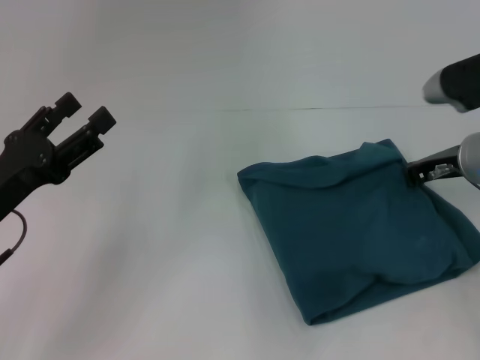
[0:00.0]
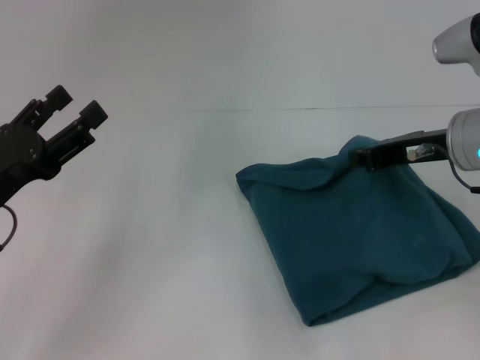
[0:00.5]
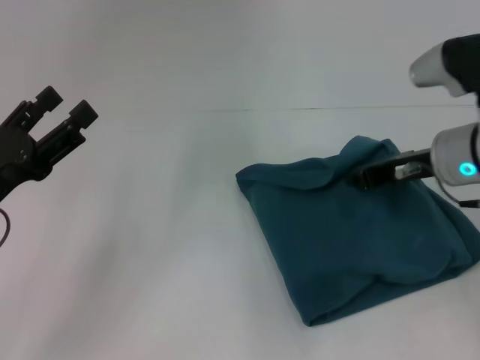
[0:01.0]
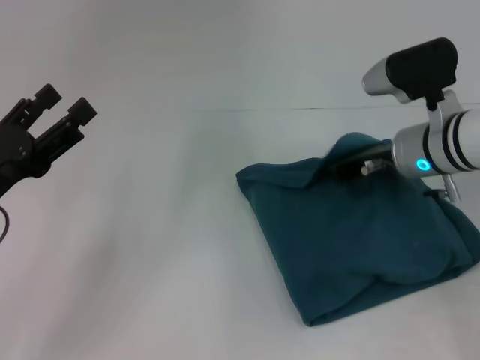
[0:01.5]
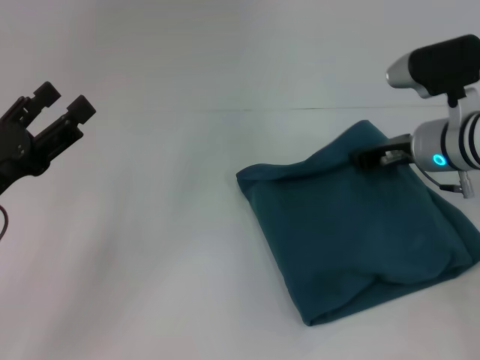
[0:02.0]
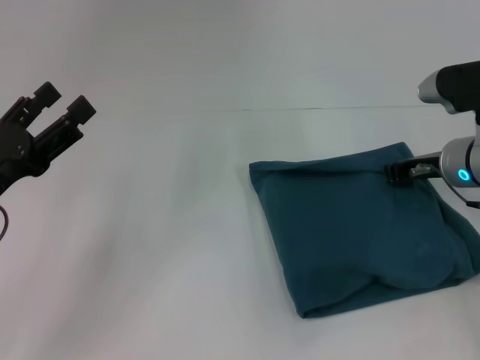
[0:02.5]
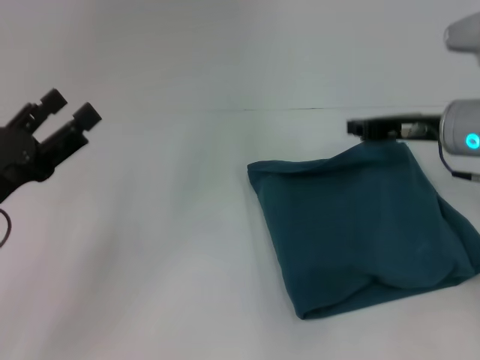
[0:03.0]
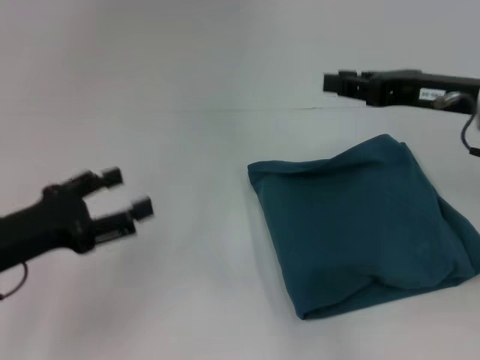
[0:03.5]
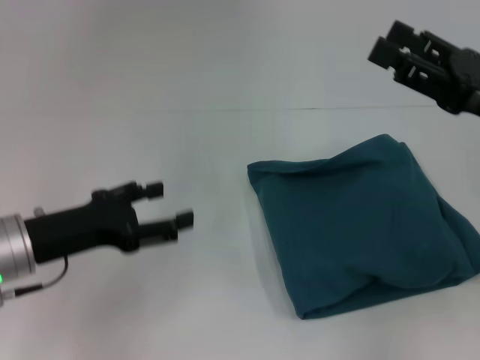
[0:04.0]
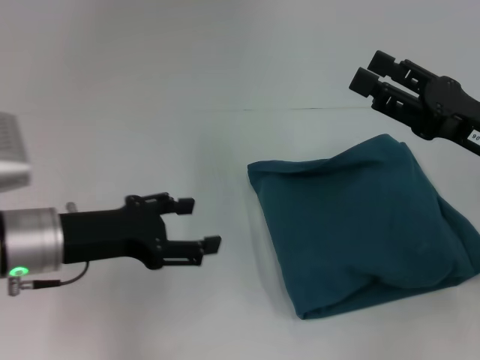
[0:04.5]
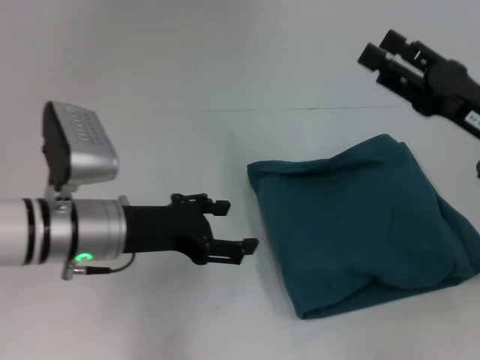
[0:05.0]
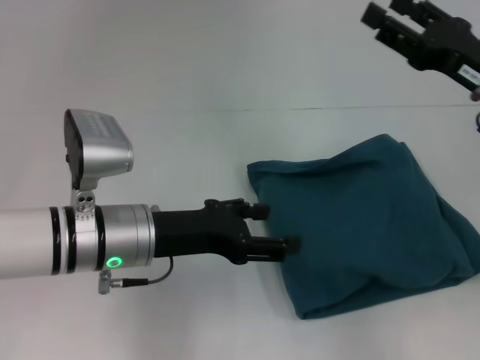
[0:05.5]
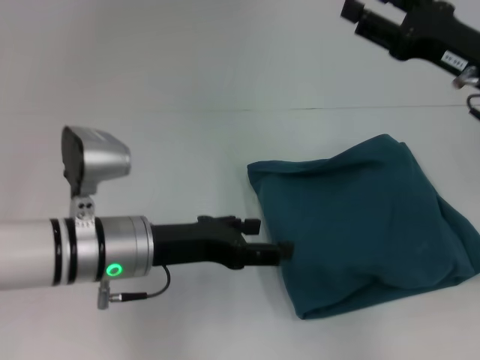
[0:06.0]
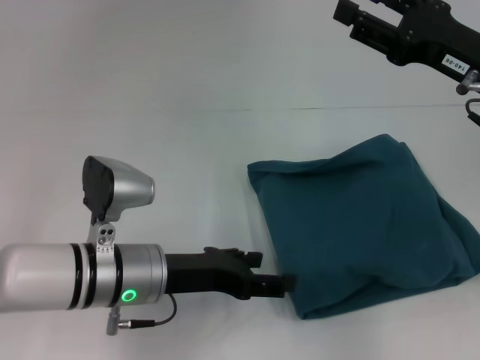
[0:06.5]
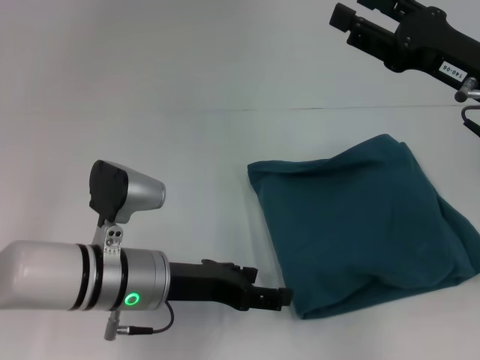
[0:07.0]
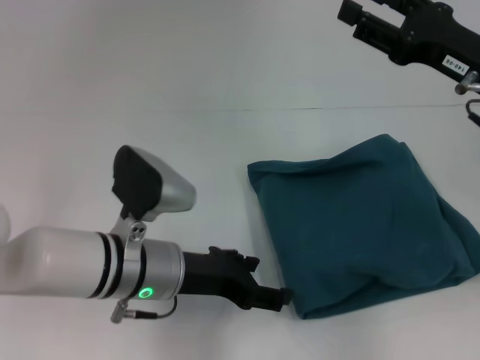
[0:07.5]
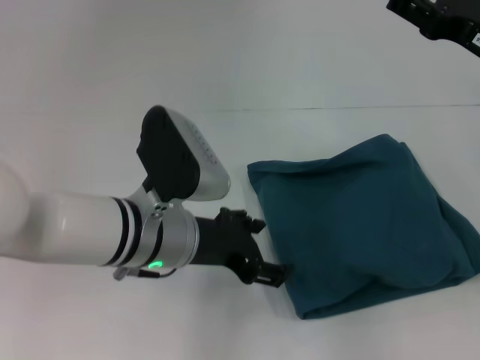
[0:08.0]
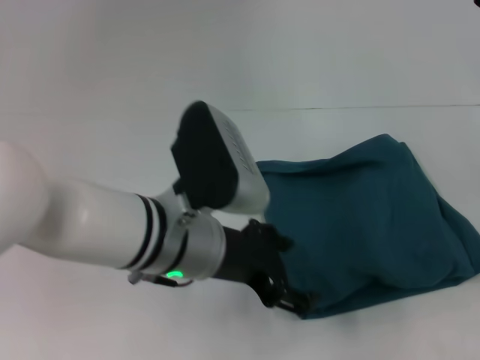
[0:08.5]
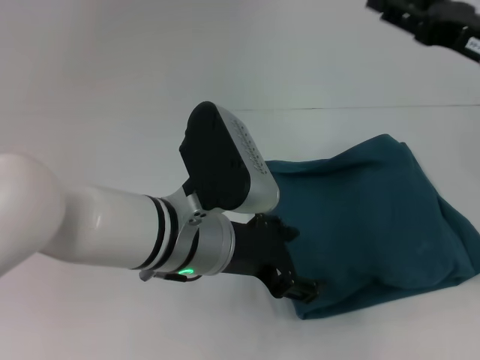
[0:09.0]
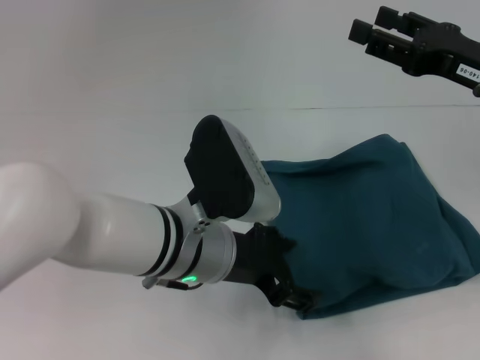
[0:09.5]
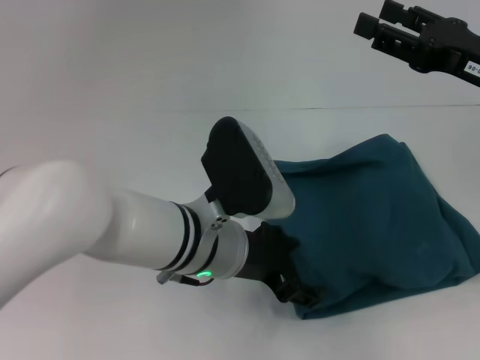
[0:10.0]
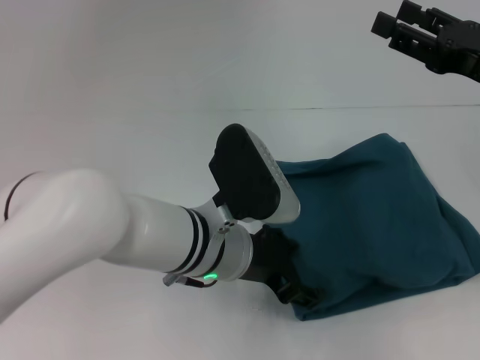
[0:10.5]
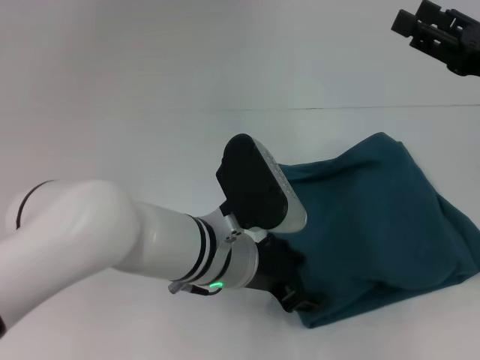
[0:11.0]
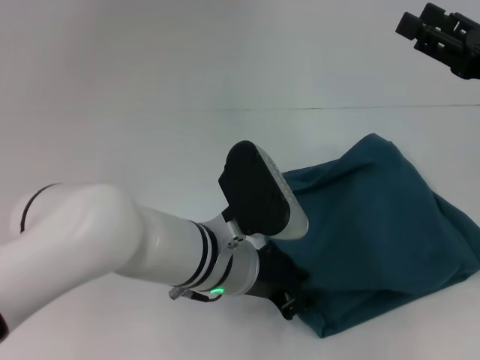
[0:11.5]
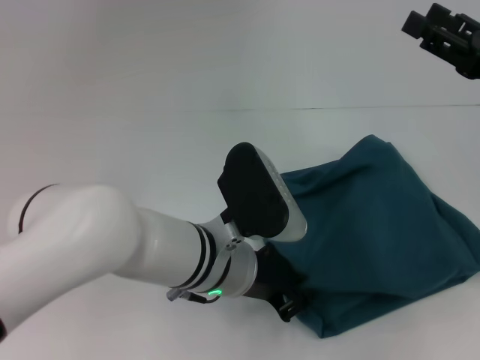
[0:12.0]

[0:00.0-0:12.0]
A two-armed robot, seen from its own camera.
0:02.0 to 0:04.0: The right gripper goes some 15 cm backward, upward and to the right, and opens.
0:04.0 to 0:06.0: The right gripper travels forward by approximately 5 cm. The left gripper goes approximately 10 cm to the right.
0:06.0 to 0:08.0: The left gripper moves about 5 cm.
0:10.0 to 0:12.0: The left gripper closes up.

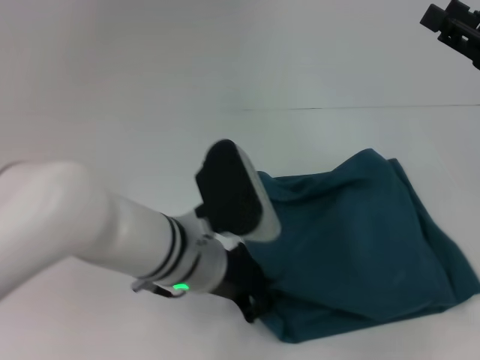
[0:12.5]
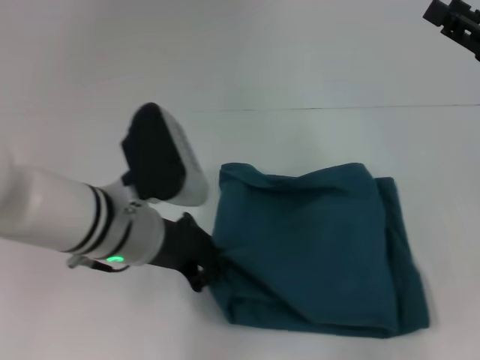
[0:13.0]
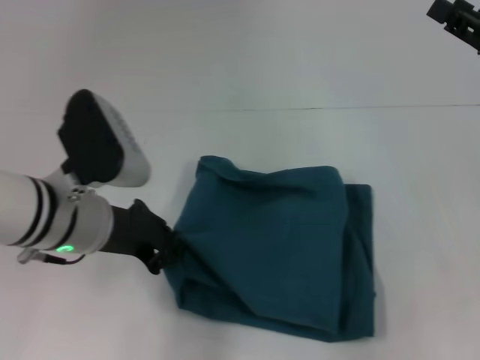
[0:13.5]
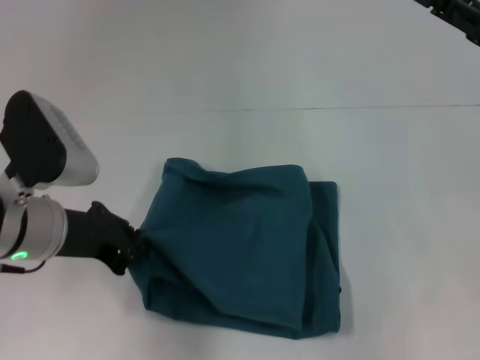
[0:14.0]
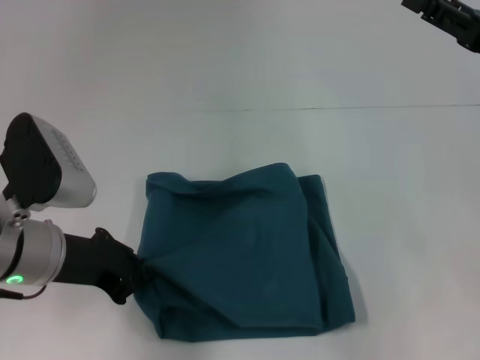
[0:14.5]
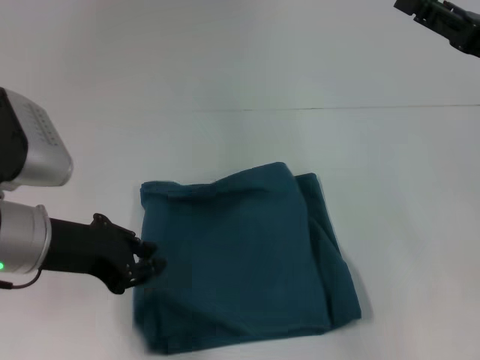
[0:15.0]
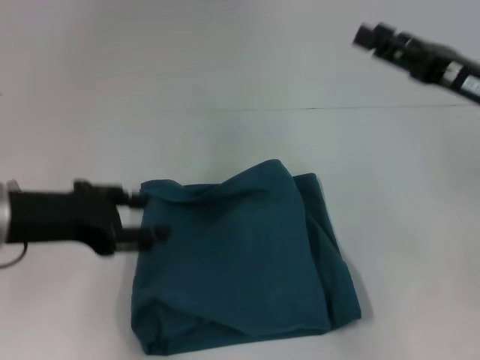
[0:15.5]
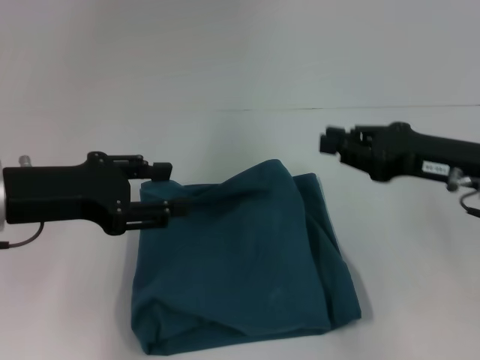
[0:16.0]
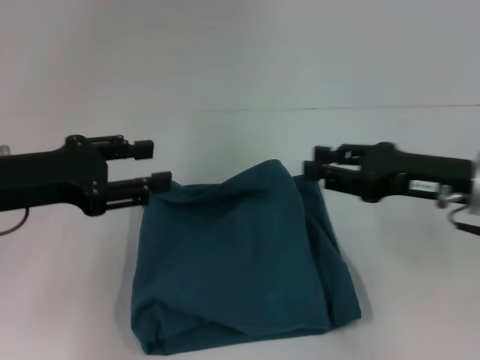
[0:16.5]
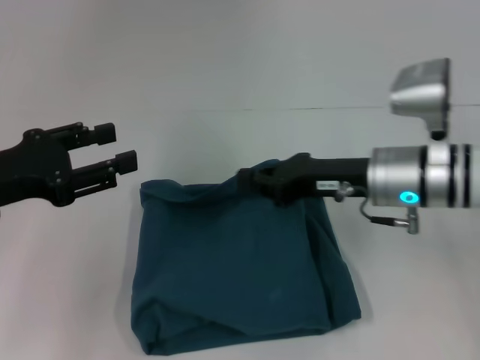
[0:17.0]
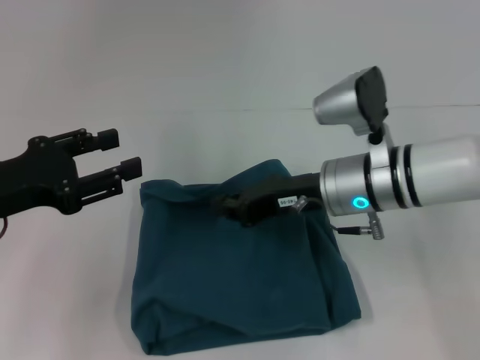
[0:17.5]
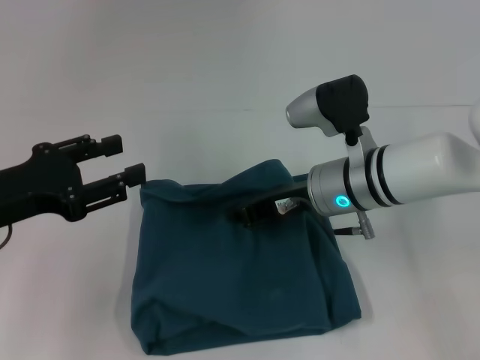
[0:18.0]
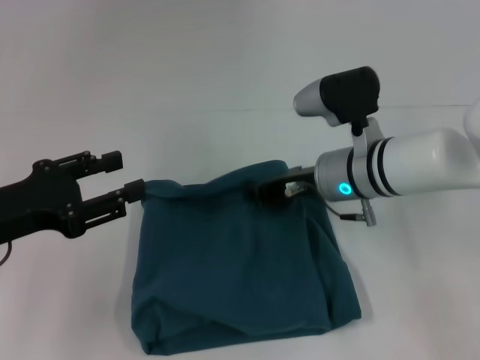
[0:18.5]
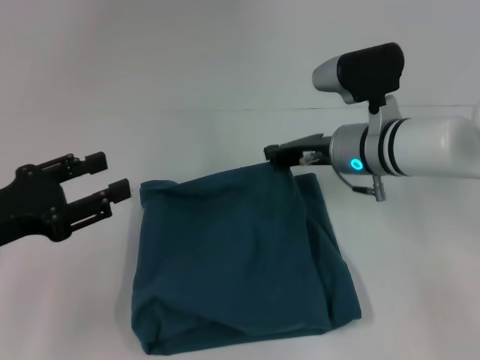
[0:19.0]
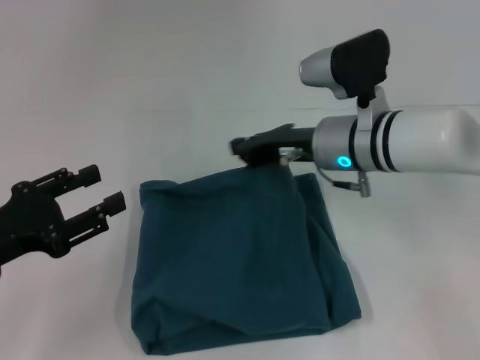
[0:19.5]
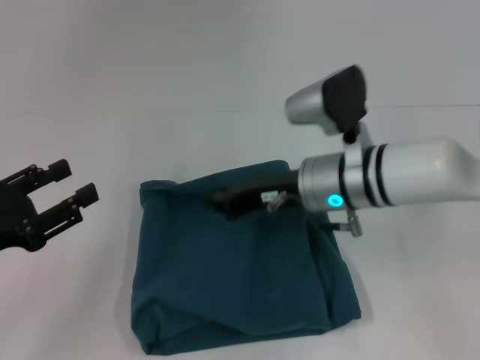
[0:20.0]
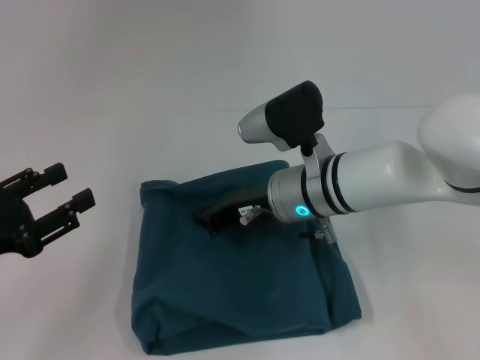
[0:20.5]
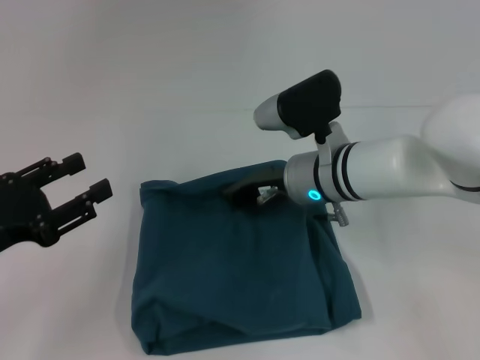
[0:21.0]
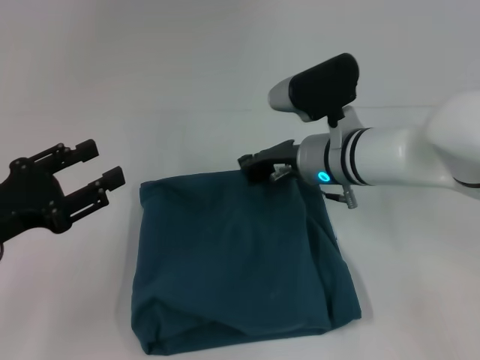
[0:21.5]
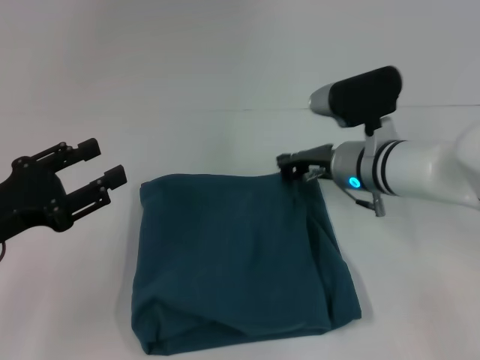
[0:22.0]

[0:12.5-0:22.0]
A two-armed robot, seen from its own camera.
0:12.5 to 0:14.5: The left gripper goes some 15 cm to the left.
0:14.5 to 0:16.5: The right gripper goes approximately 5 cm downward and to the left. Meanwhile the left gripper moves to the left, approximately 5 cm, and opens up.
0:16.5 to 0:18.0: The right gripper shifts approximately 15 cm to the left, and closes.
0:18.0 to 0:20.0: The left gripper moves approximately 5 cm.
0:20.0 to 0:22.0: The right gripper ends up about 5 cm from where it was.

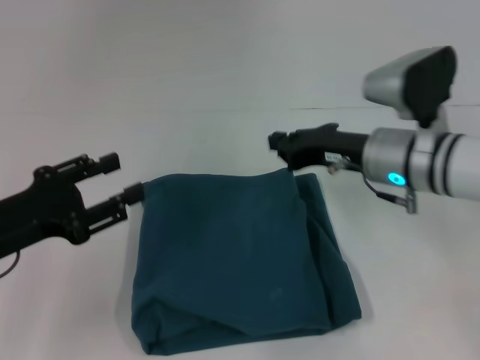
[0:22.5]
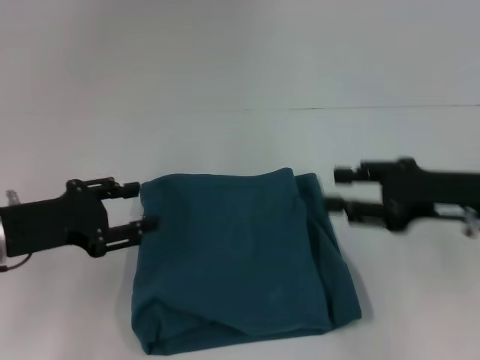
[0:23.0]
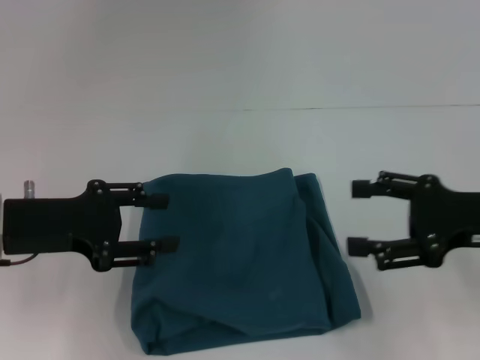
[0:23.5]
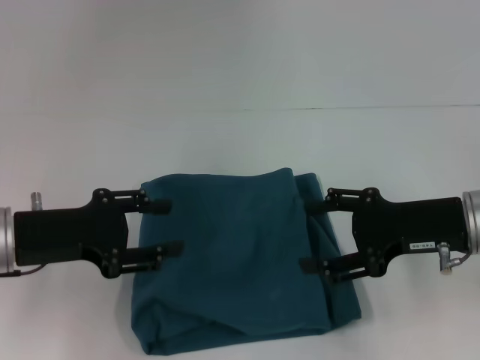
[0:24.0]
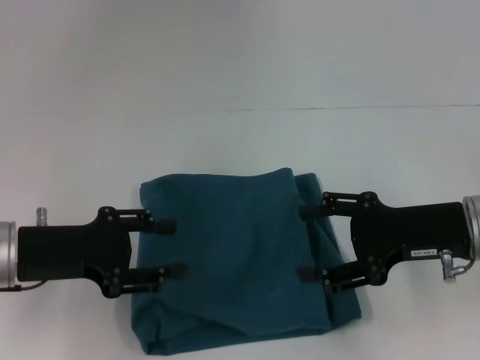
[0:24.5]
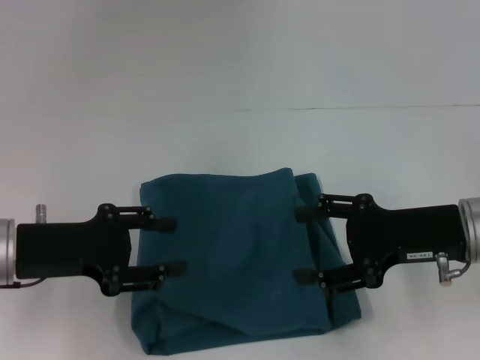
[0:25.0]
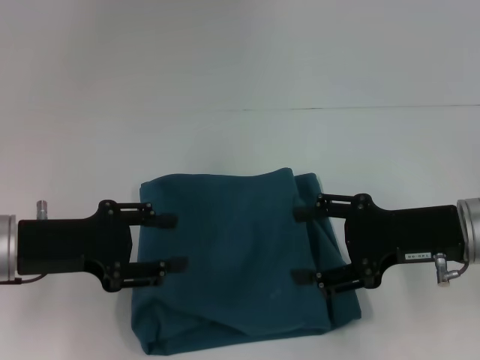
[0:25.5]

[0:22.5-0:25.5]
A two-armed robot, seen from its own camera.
0:22.5 to 0:24.0: The right gripper heads to the right and backward, covering roughly 10 cm, and opens up.
0:24.0 to 0:25.5: The grippers stay close to where they were, moving slightly.

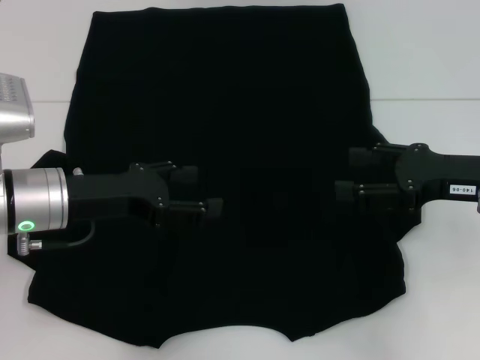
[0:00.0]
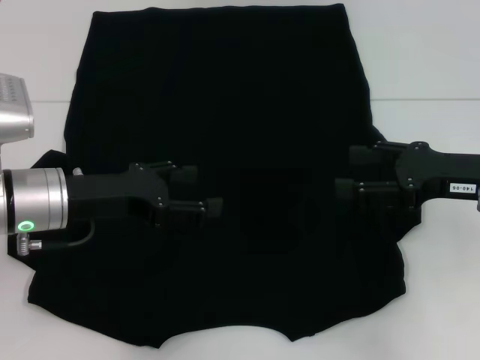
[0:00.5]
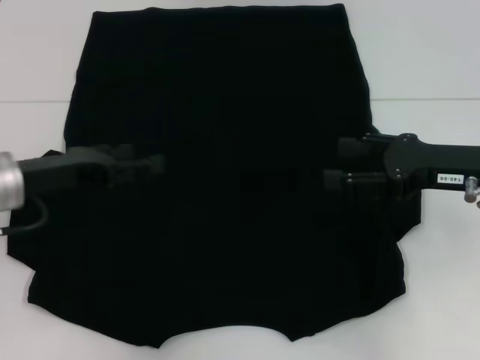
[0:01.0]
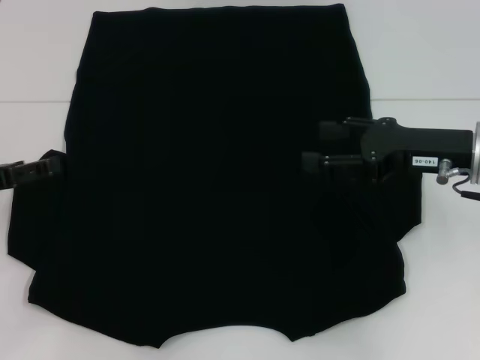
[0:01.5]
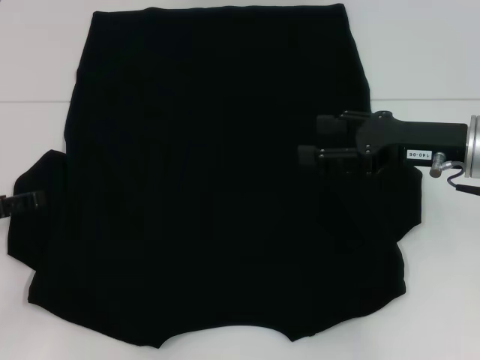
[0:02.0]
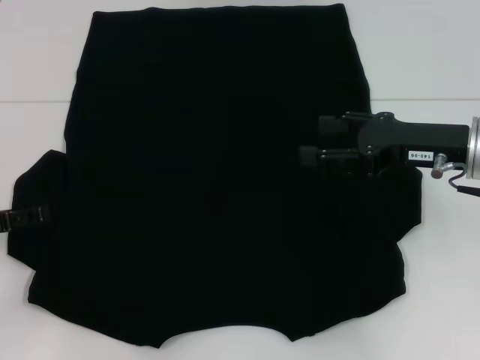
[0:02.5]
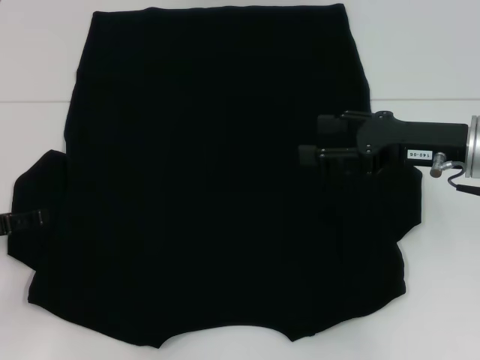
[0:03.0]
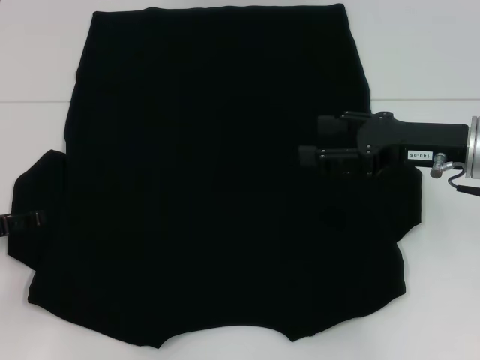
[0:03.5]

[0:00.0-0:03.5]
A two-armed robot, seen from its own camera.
0:00.0 to 0:02.0: The left gripper heads to the left, covering approximately 15 cm.
